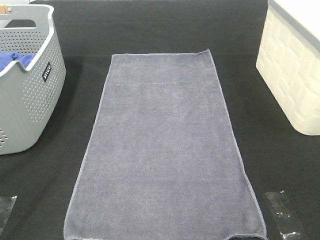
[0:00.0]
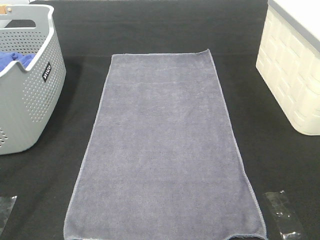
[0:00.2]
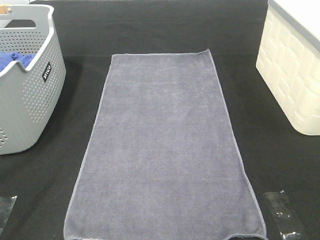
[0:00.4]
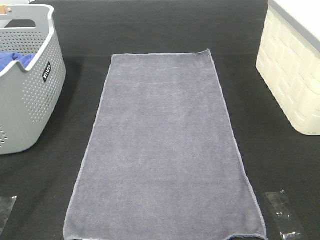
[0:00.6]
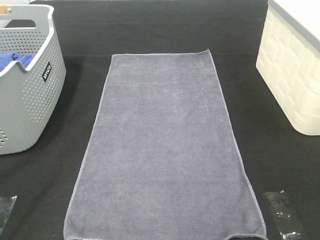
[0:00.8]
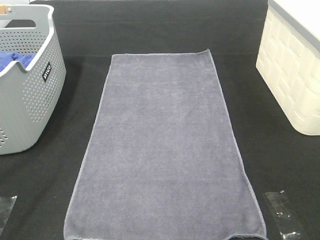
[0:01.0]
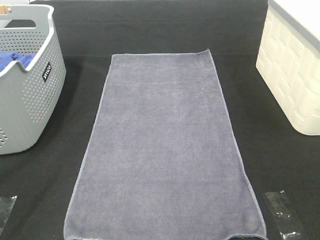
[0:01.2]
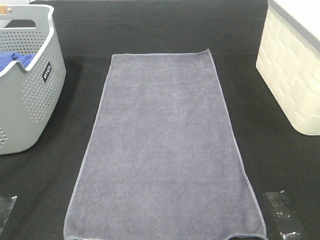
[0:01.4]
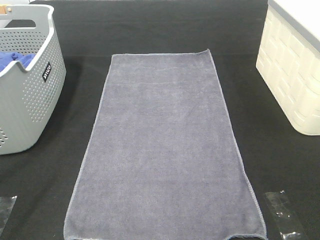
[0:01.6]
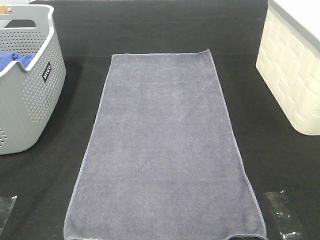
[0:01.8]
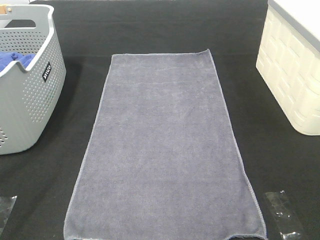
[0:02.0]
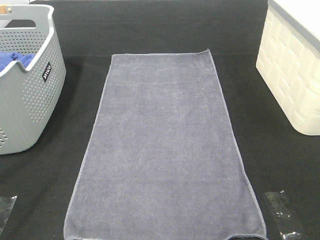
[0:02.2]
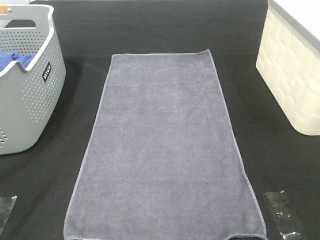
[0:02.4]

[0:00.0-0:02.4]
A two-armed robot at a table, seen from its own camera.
Task of the whole recording: Remove the towel and place it.
0:01.2 to 0:02.4: The two grippers keep their place.
